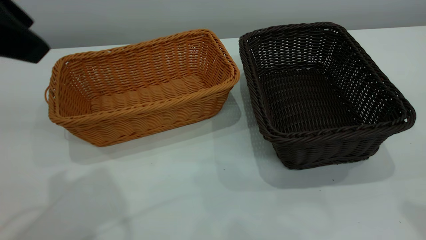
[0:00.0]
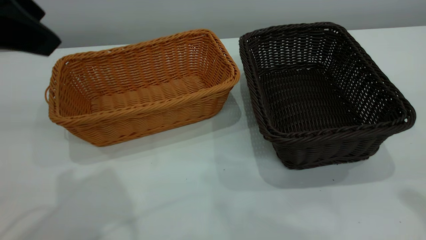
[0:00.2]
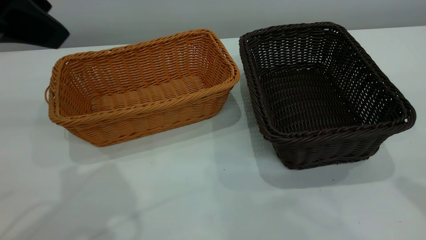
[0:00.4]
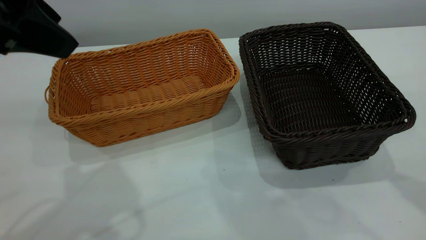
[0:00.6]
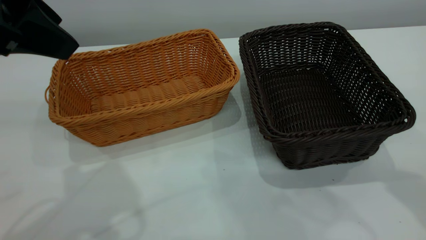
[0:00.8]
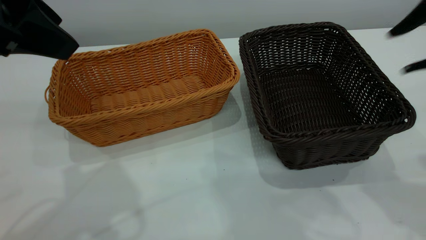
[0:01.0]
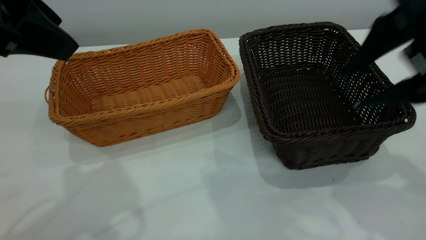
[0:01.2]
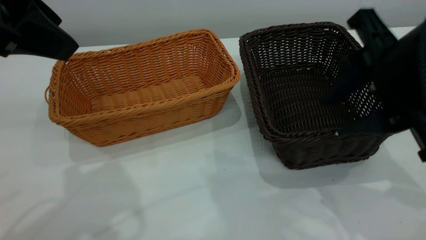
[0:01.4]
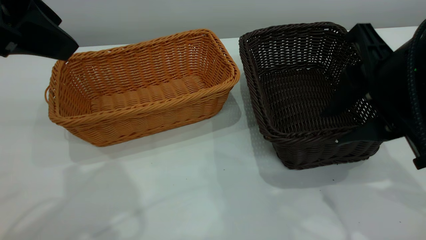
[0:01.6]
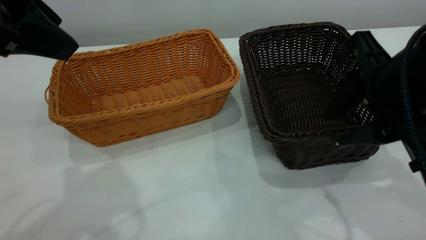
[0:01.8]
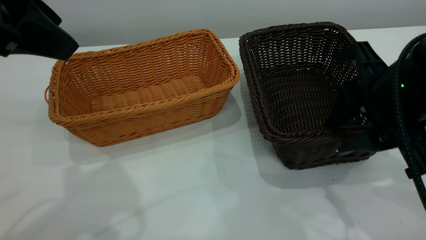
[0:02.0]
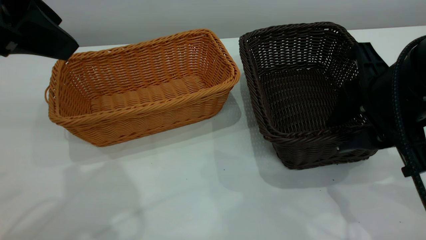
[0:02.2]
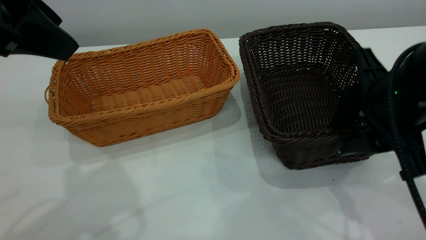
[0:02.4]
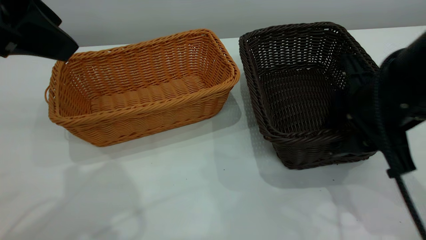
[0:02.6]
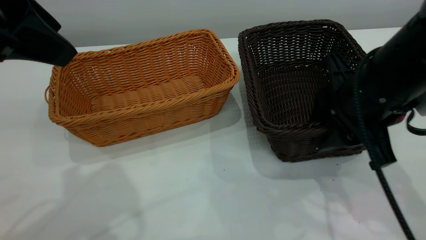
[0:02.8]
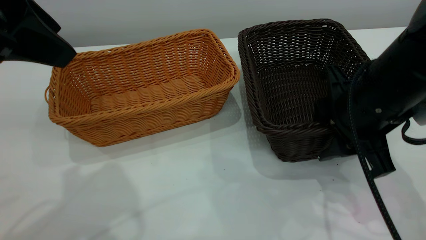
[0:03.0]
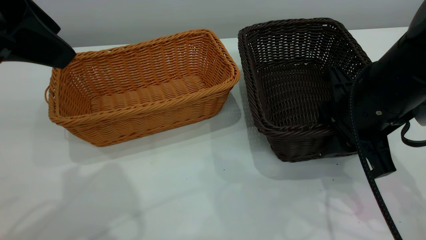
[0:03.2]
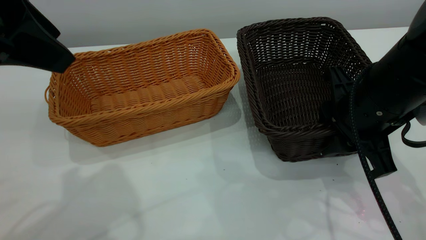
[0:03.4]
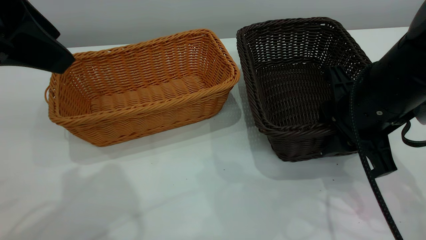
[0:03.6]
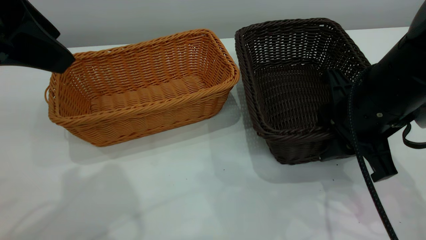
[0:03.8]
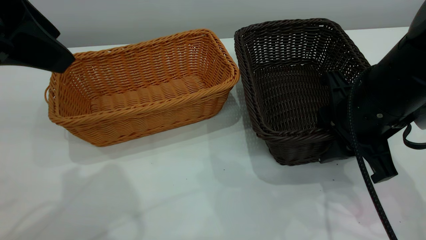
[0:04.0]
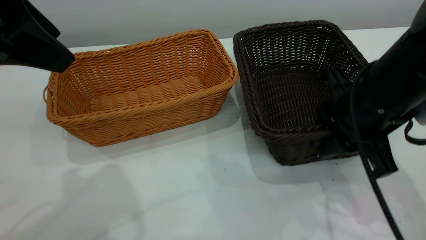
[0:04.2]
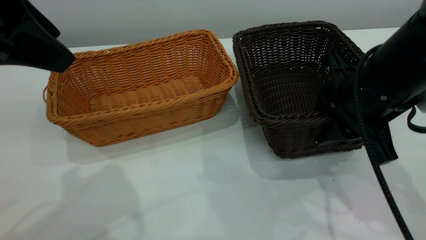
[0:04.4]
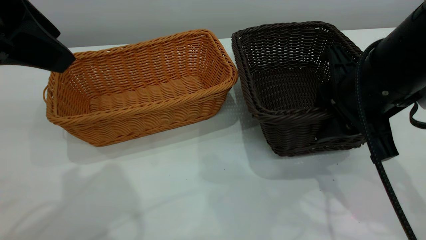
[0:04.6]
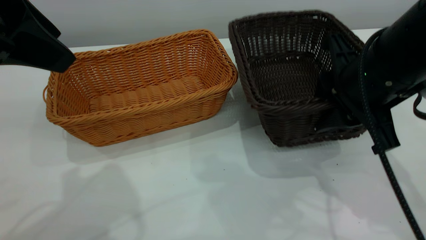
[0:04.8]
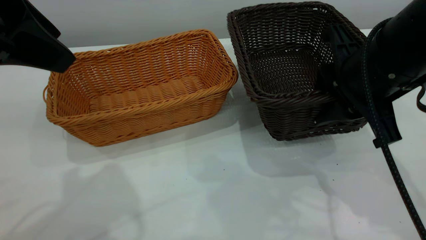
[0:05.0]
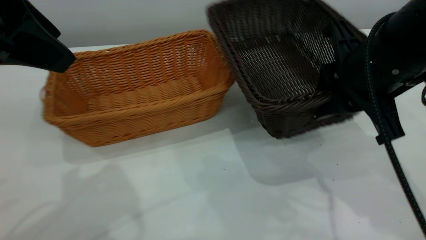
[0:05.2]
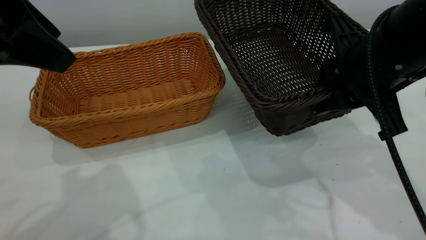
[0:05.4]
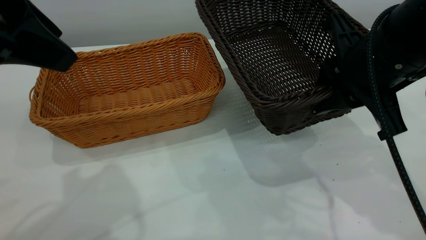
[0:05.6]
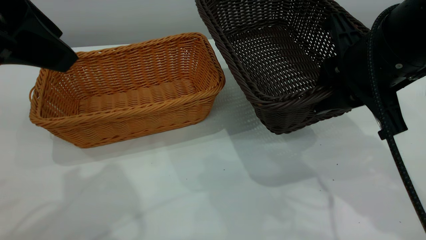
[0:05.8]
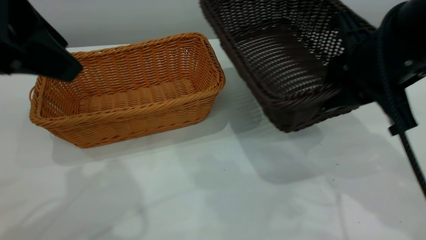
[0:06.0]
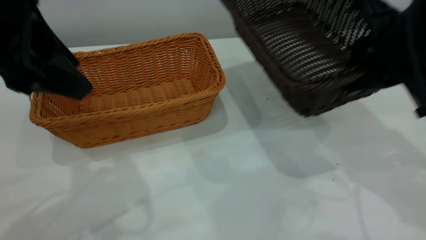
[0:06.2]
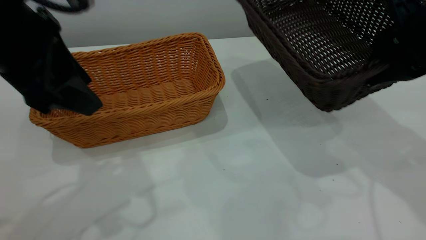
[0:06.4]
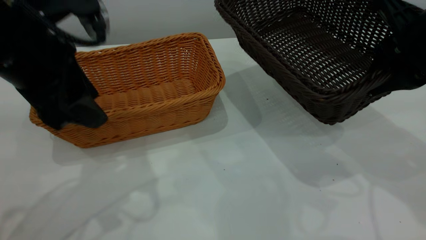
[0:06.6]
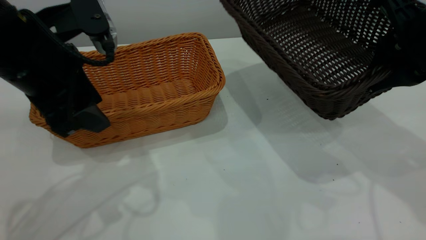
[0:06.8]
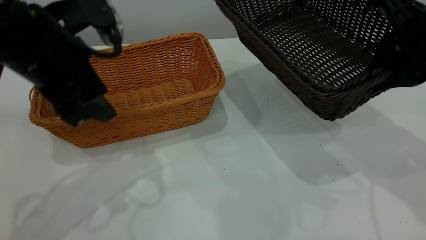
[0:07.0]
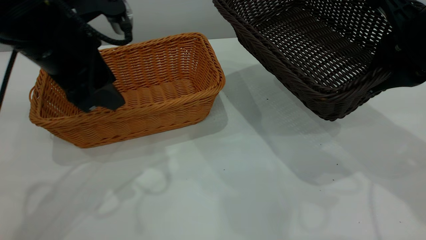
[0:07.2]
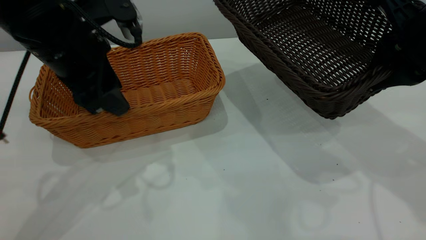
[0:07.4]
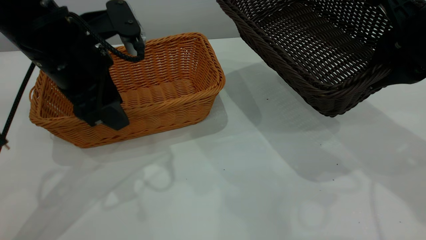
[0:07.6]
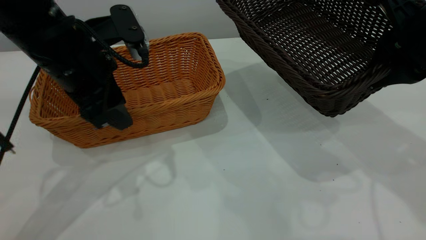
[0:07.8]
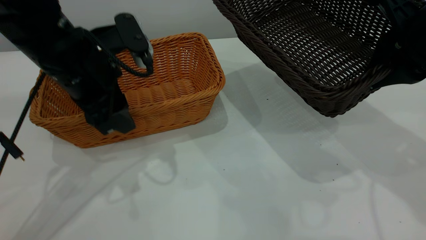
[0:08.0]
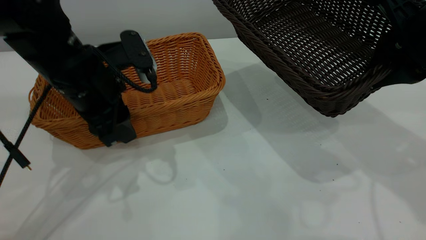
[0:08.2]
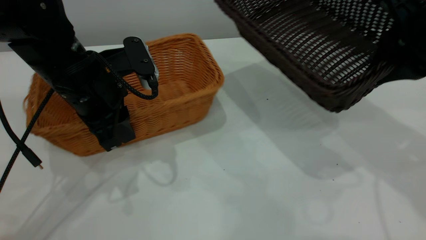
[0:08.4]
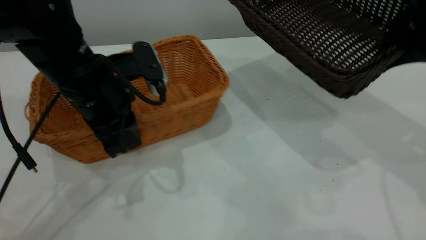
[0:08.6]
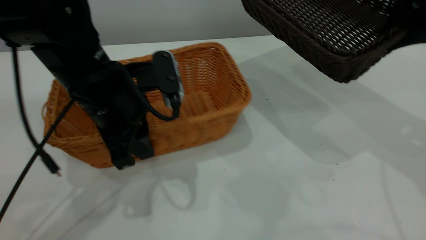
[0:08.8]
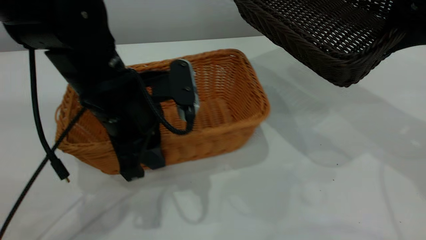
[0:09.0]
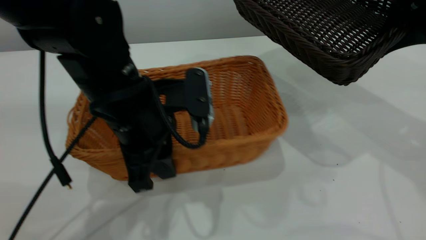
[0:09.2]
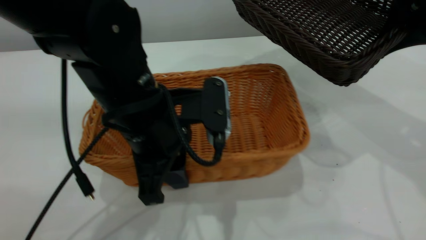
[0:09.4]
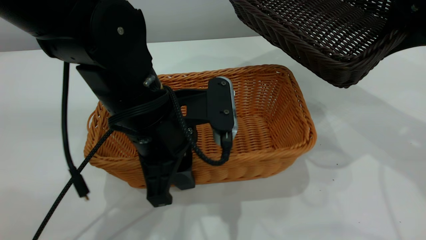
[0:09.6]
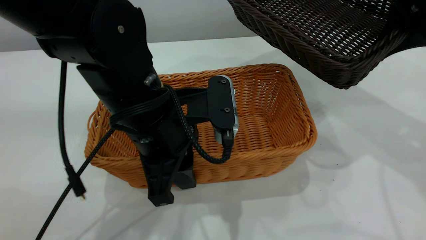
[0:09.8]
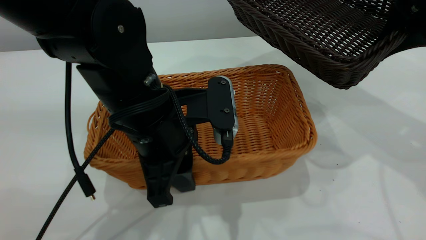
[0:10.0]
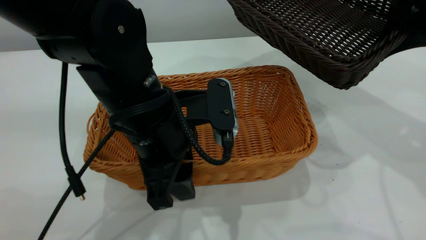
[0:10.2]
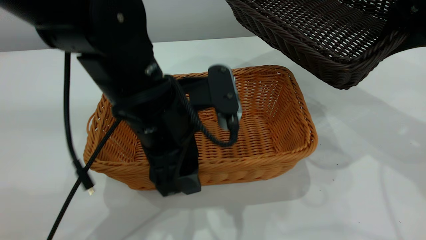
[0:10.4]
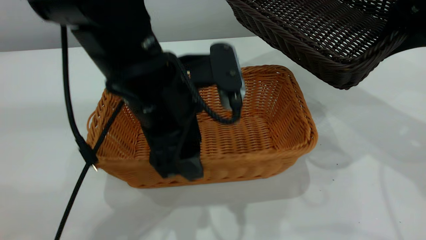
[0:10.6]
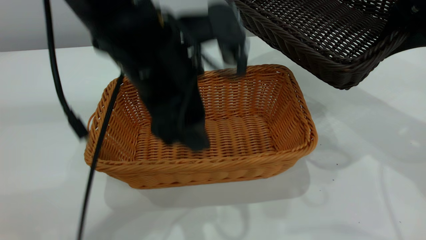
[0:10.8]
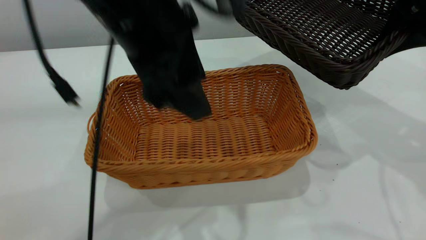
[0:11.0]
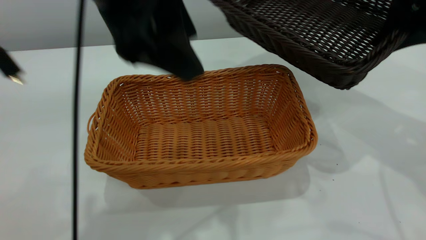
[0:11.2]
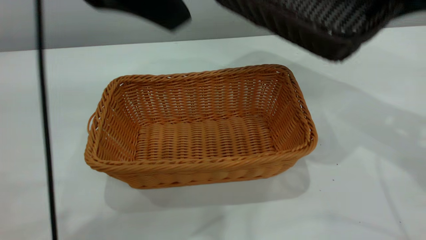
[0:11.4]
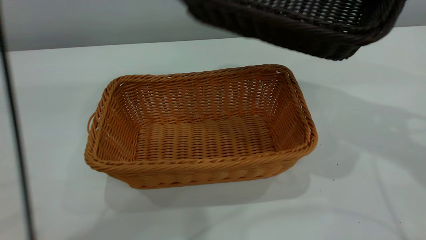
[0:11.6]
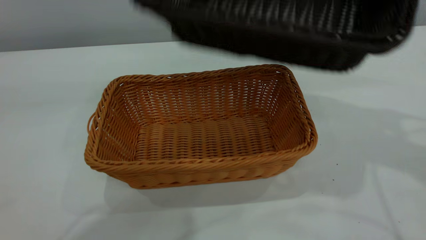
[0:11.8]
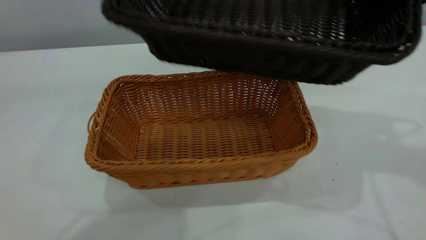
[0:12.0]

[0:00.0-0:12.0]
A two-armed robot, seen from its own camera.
Task of the whole recording: the left gripper grasp the brown basket and place it in the center of the table, the right gripper grasp the black basket and place it inside the brown one.
Step, 0:00.0 to 0:06.4: Pick up the light basket with the right gripper.
Step, 0:06.6 to 0:10.6: Place the light-colored basket in the center.
0:00.0 to 0:01.6: The right gripper goes about 20 cm downward, forward and to the left.
0:01.6 to 0:03.0: The right gripper travels downward by about 5 cm.
0:03.0 to 0:04.4: The grippers stay close to where they were, moving slightly.
0:06.0 to 0:07.6: The left gripper goes some 15 cm downward and forward.
0:07.6 to 0:09.0: The left gripper is displaced to the right and downward by about 10 cm, and closes.
0:09.0 to 0:10.4: The left gripper moves about 5 cm, and opens its fingers.
0:10.4 to 0:12.0: The left gripper goes some 30 cm upward. Meanwhile the right gripper moves upward, about 5 cm.

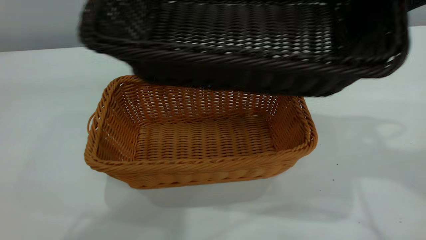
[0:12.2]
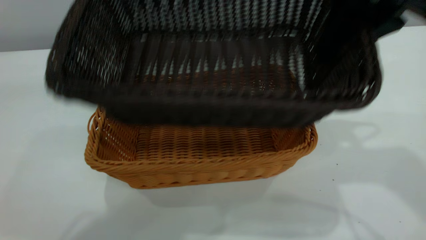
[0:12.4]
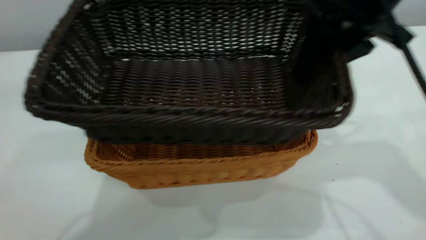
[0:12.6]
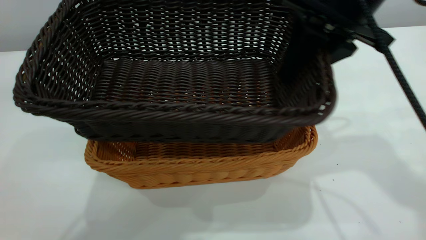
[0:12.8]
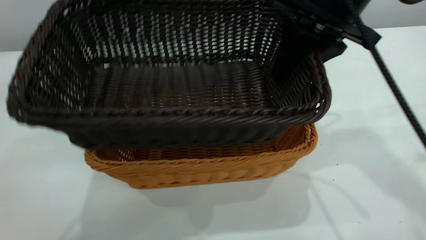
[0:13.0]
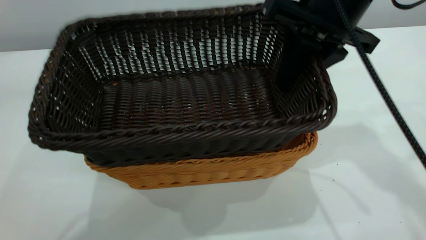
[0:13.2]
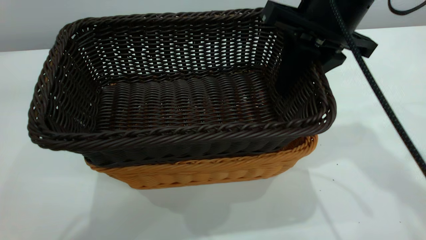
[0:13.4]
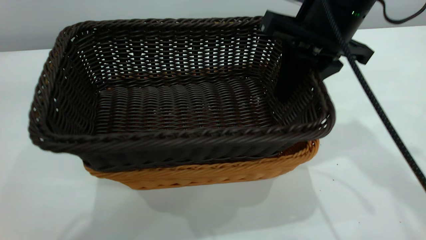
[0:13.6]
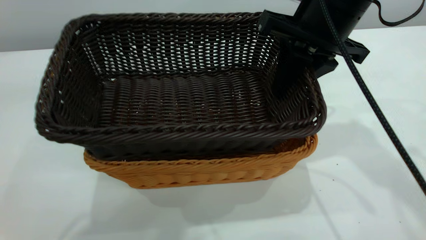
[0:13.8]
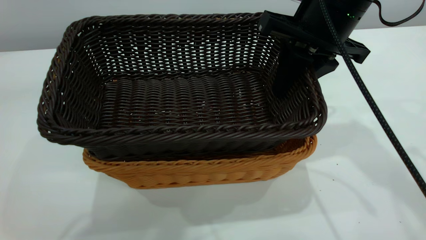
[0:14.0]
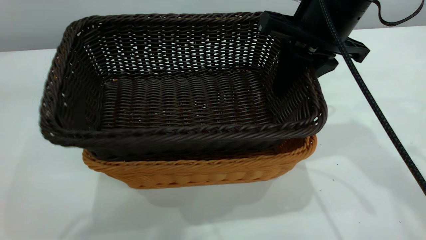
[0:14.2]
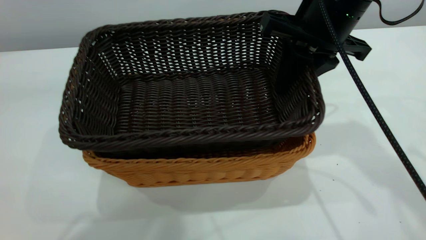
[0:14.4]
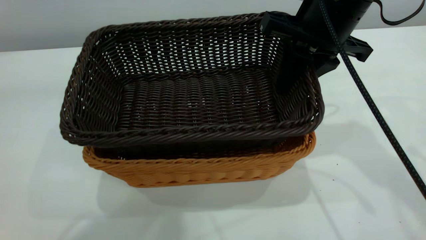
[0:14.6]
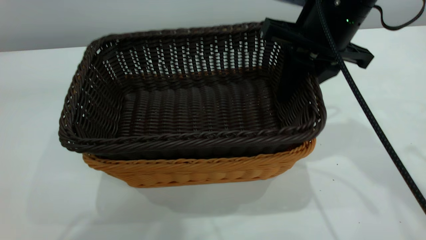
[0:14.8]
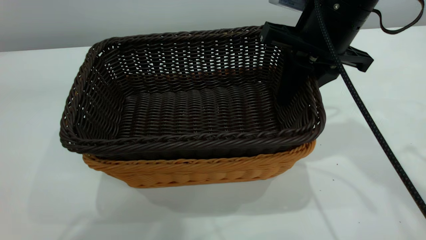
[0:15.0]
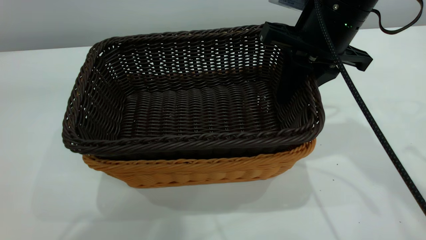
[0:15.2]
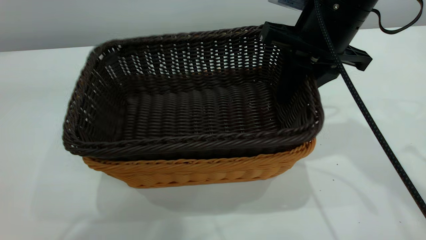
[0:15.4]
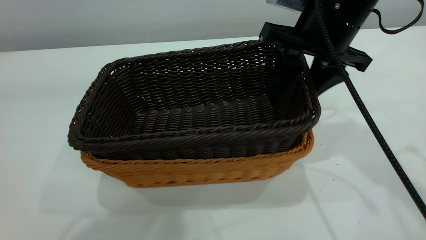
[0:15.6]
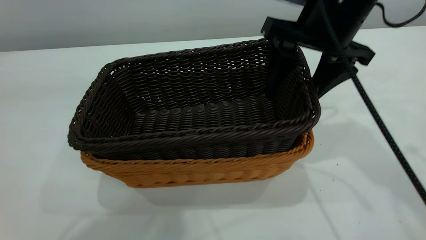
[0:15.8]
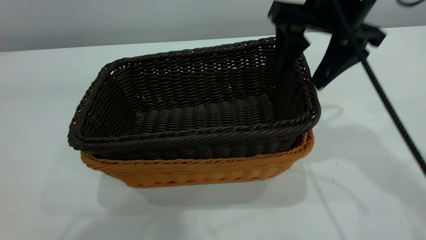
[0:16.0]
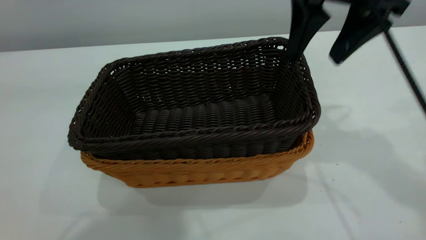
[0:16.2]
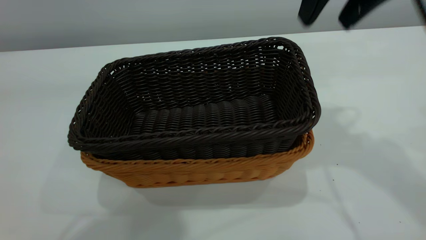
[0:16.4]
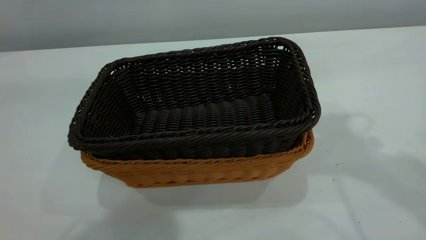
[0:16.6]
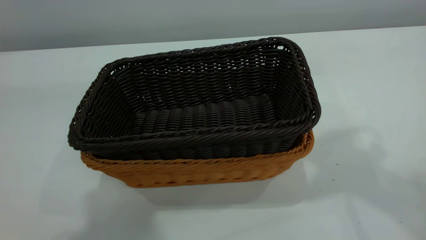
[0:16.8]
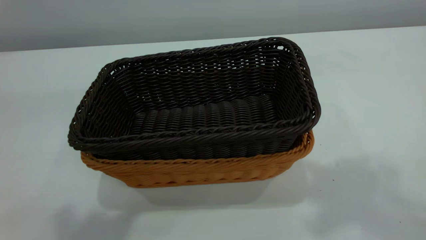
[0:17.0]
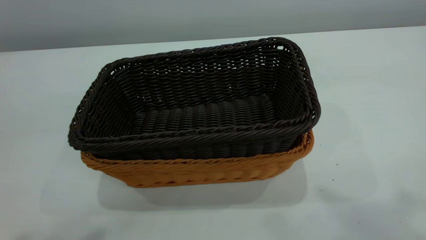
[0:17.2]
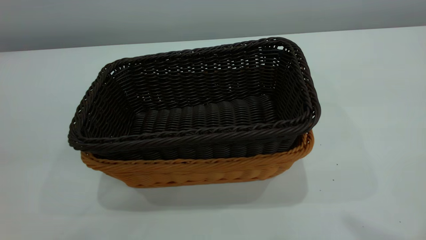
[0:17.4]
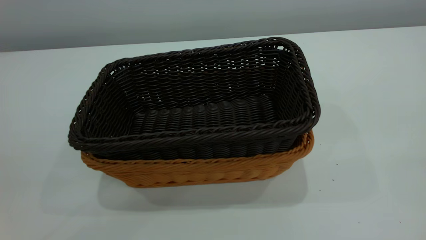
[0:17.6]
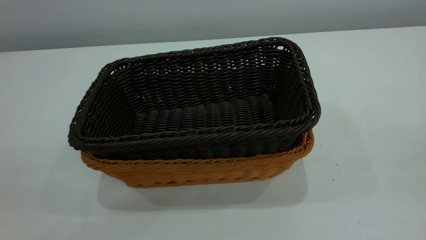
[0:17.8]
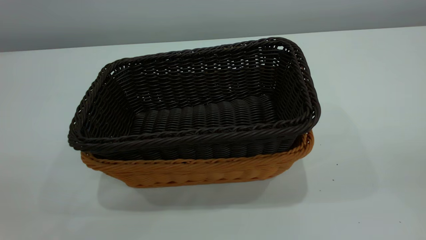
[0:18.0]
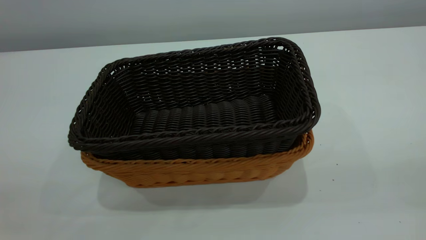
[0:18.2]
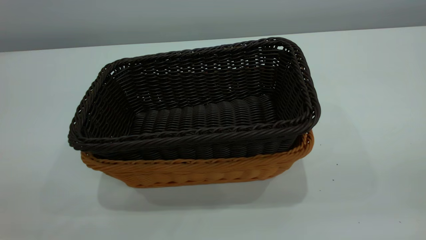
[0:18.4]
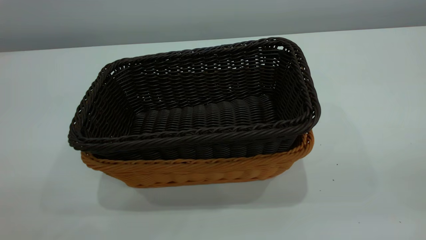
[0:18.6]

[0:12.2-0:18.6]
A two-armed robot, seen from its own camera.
Task of the whole recording: the left gripper grasp the brown basket and place it in the center of the table, the right gripper grasp the black basket and place it inside the brown one.
Step, 0:12.2 to 0:16.2: Place the dark basket on top of the light basket.
0:12.2 to 0:13.8: The right gripper shifts about 10 cm downward and to the left.
0:15.4 to 0:17.0: The right gripper travels upward and backward by roughly 30 cm, and closes. The left gripper heads backward, covering roughly 5 cm, and closes its fingers.
0:17.0 to 0:18.6: The left gripper travels backward, to the left and downward by roughly 20 cm.
